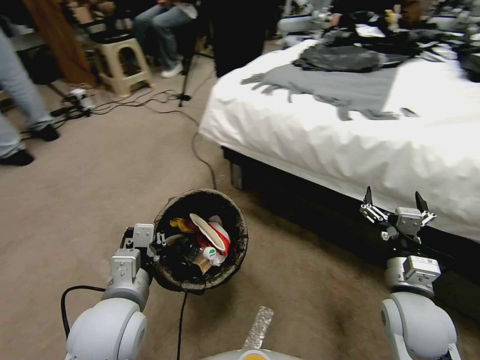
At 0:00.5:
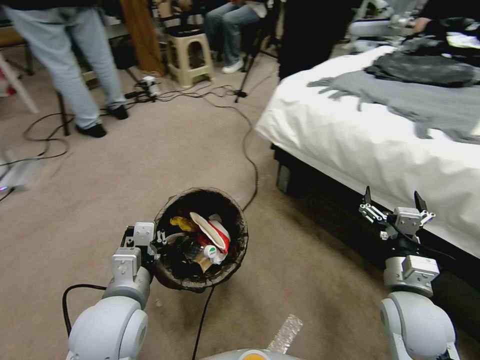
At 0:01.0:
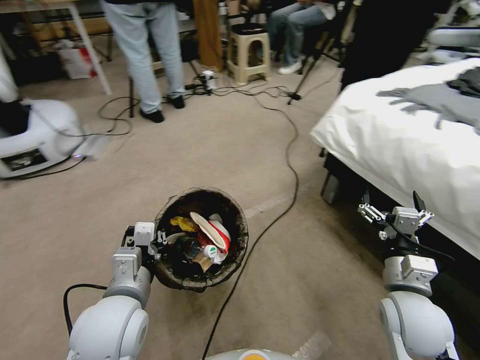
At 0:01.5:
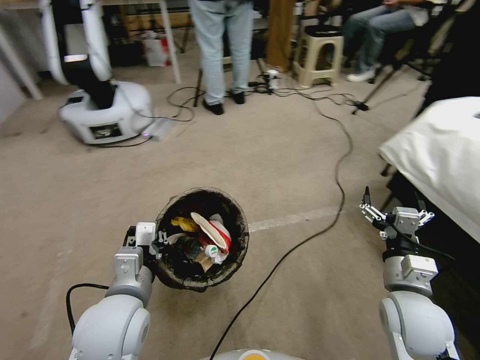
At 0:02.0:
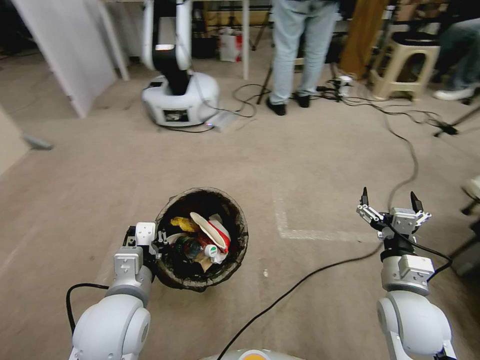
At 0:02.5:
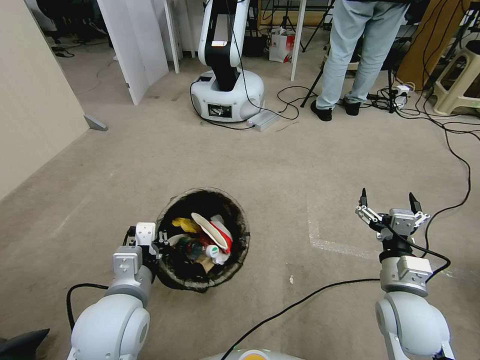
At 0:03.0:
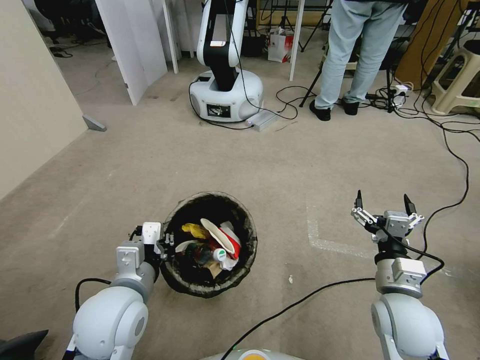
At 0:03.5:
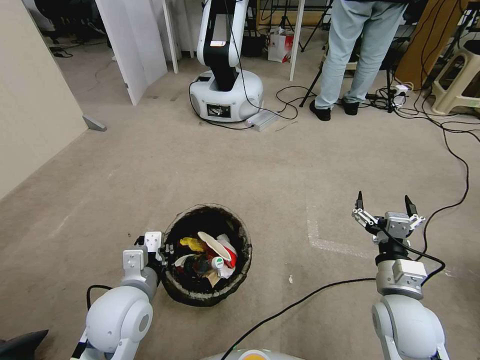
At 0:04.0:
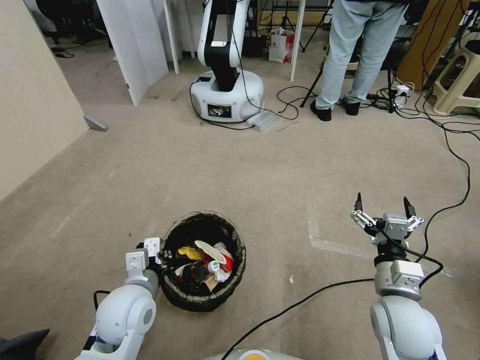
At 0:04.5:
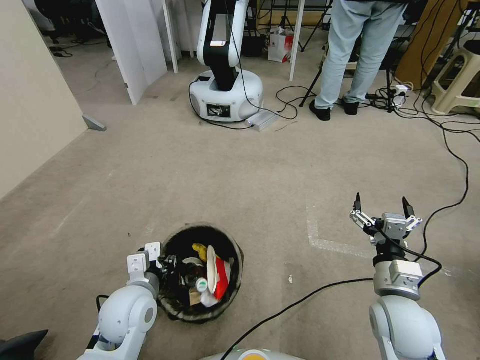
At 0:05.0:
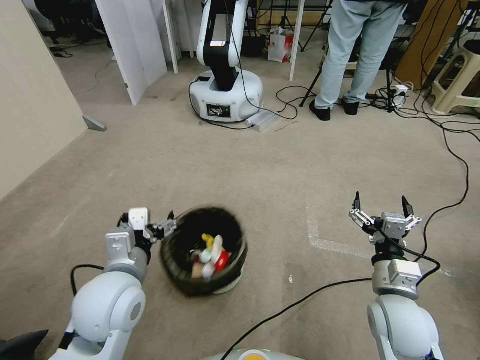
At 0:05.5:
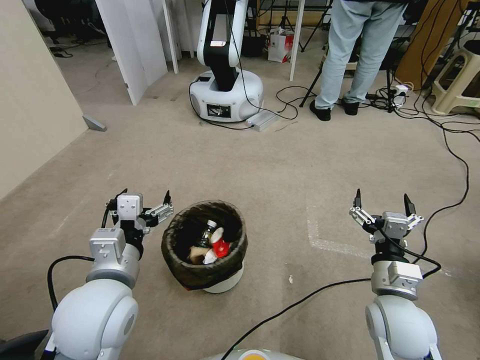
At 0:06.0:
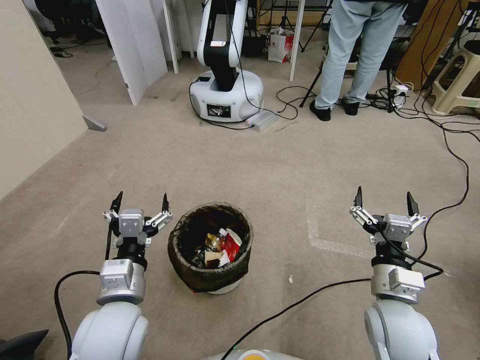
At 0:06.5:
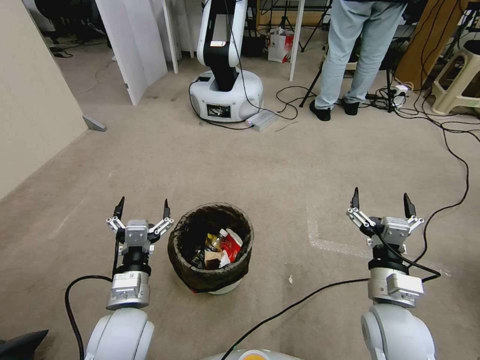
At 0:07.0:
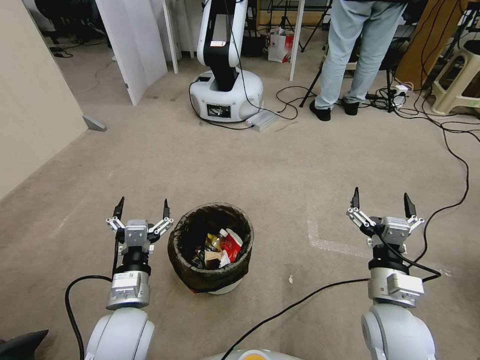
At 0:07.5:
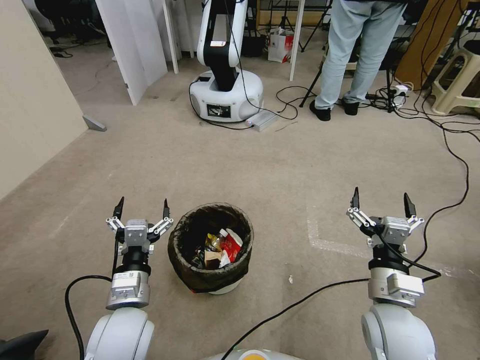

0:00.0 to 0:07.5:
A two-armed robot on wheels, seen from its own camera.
Task of the whole recording: Pick up the trash bin, then pick up the garbage from the floor and place it into the trash bin.
0:02.0 to 0:04.0: The left gripper goes roughly 5 cm downward.
0:04.0 to 0:05.5: The left gripper moves upward, roughly 10 cm, and opens up.
0:05.5 to 0:07.5: The left gripper goes approximately 10 cm downward.
